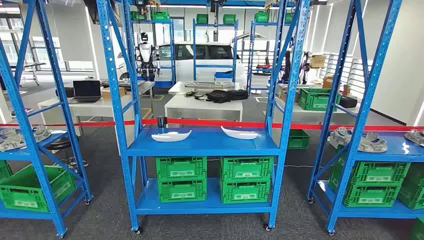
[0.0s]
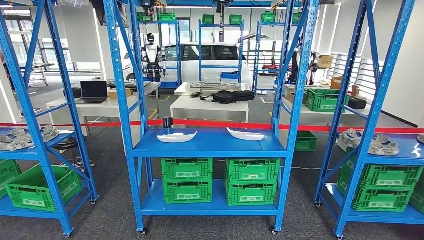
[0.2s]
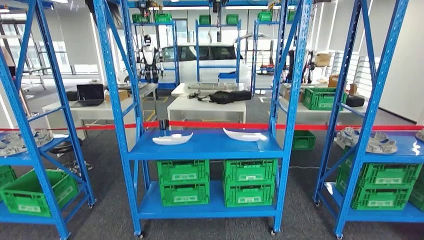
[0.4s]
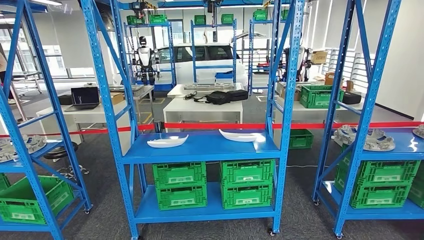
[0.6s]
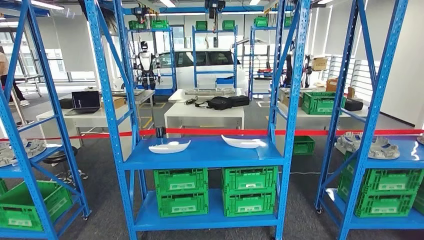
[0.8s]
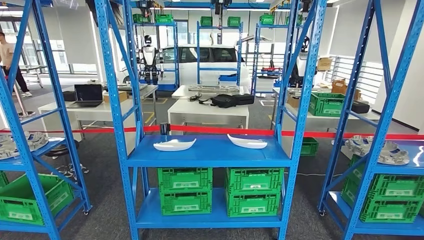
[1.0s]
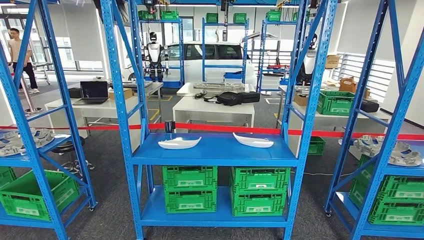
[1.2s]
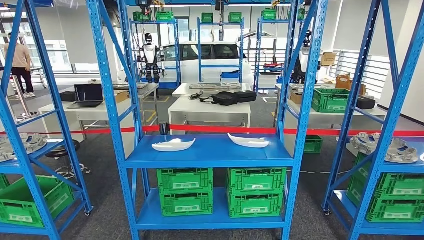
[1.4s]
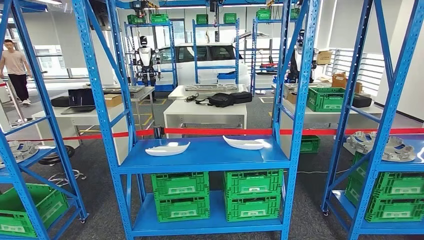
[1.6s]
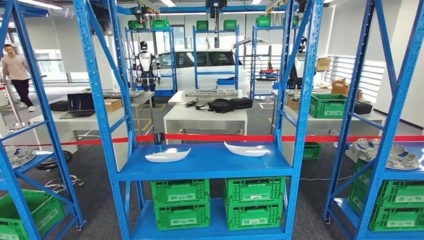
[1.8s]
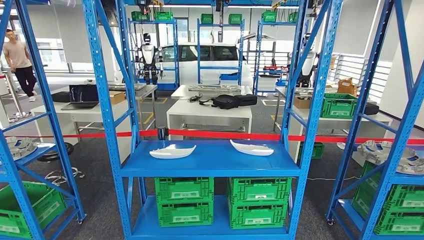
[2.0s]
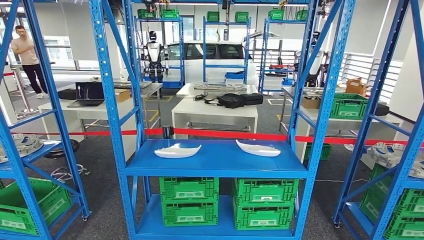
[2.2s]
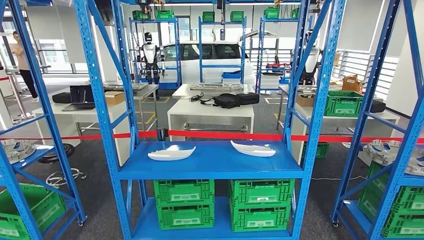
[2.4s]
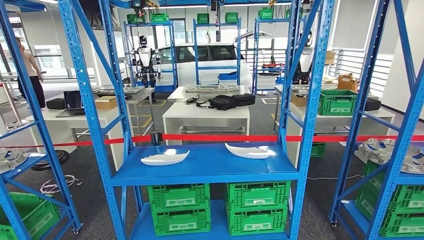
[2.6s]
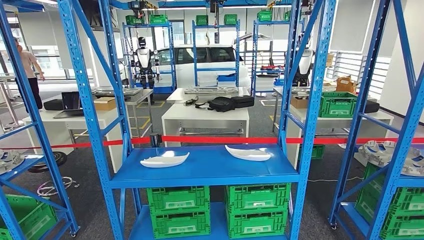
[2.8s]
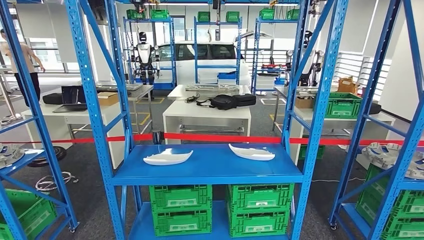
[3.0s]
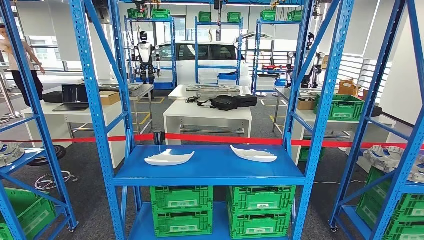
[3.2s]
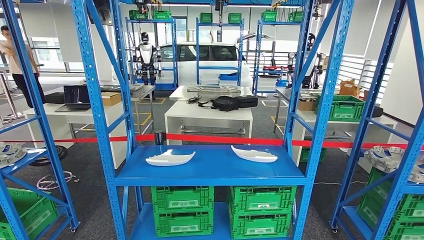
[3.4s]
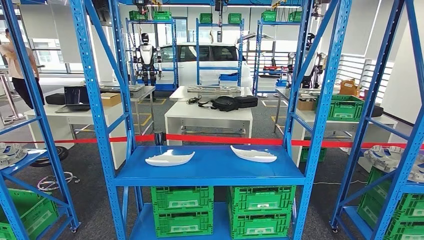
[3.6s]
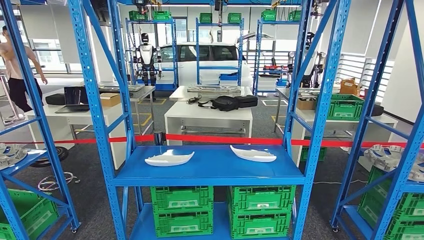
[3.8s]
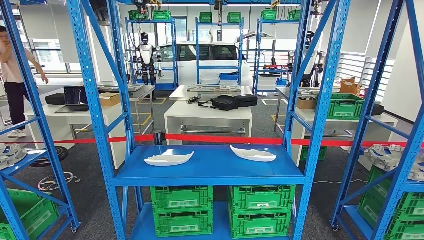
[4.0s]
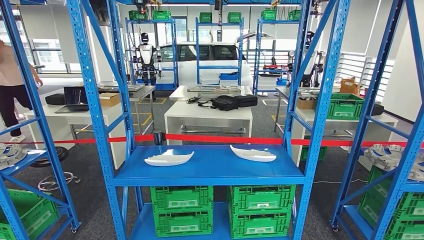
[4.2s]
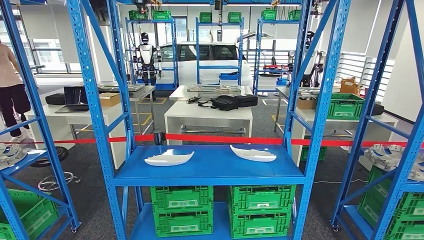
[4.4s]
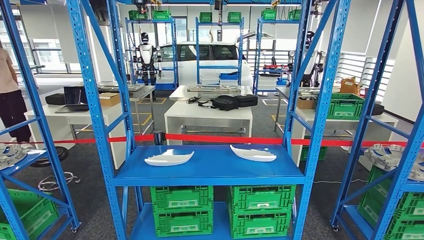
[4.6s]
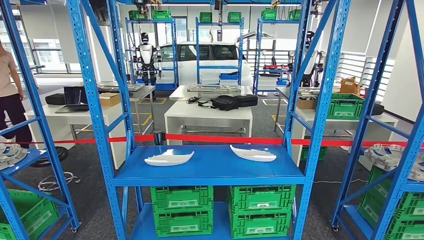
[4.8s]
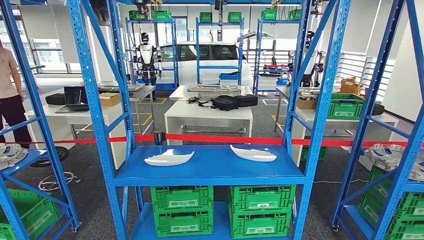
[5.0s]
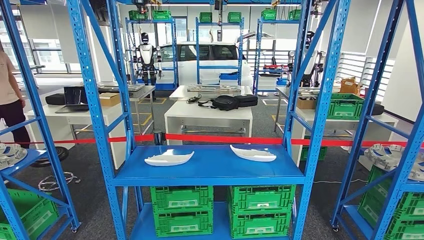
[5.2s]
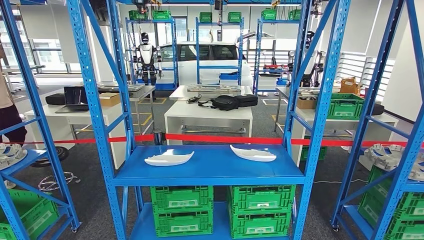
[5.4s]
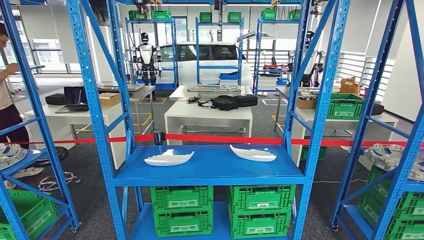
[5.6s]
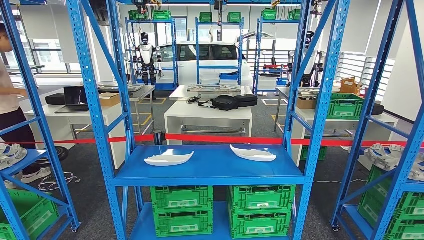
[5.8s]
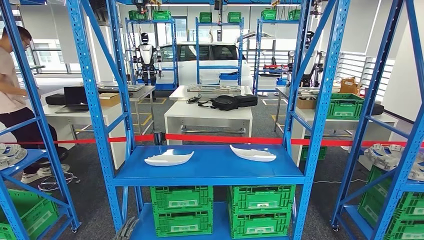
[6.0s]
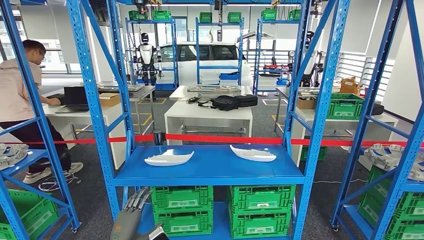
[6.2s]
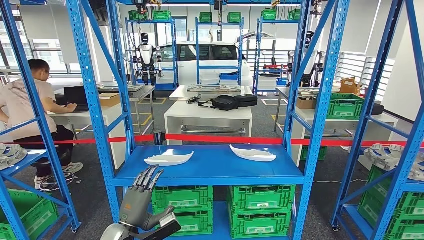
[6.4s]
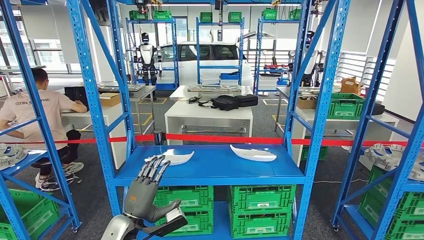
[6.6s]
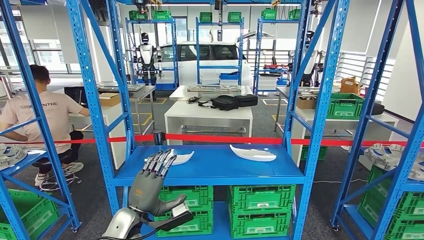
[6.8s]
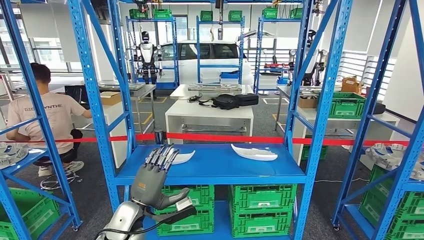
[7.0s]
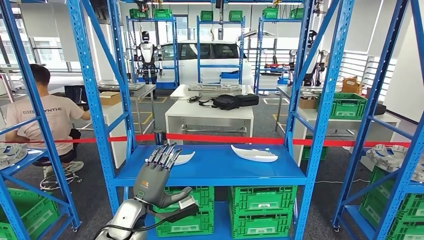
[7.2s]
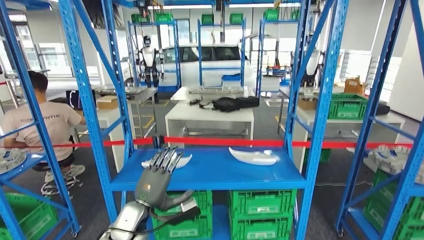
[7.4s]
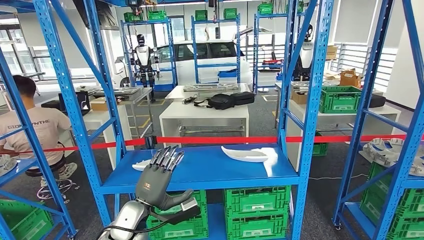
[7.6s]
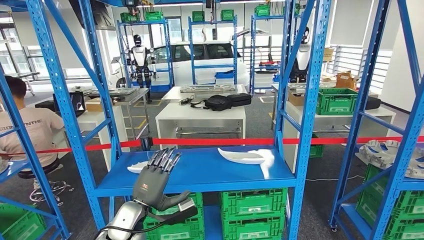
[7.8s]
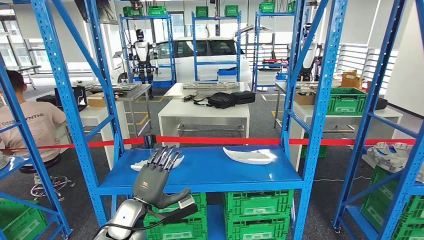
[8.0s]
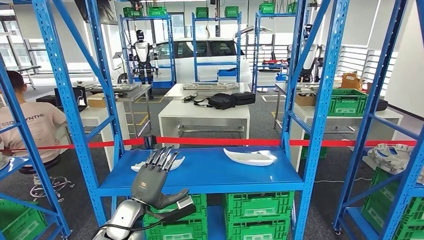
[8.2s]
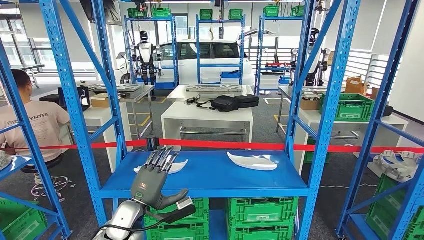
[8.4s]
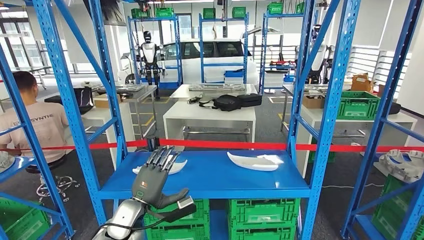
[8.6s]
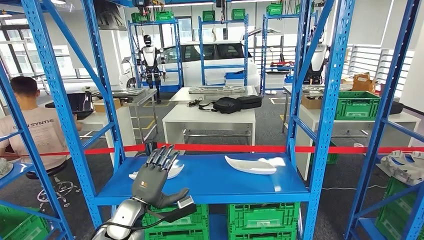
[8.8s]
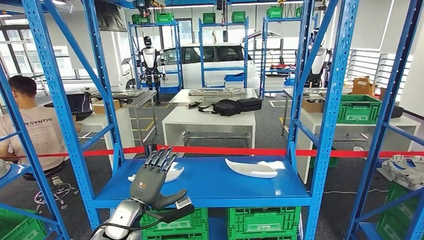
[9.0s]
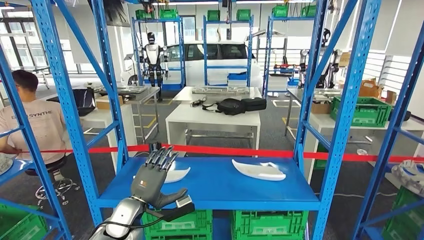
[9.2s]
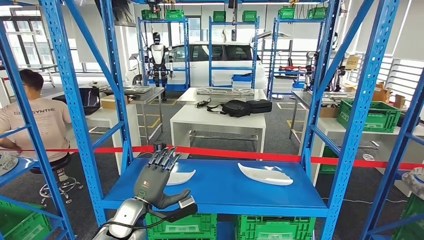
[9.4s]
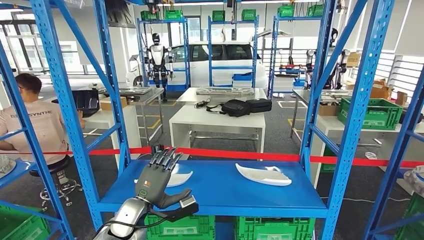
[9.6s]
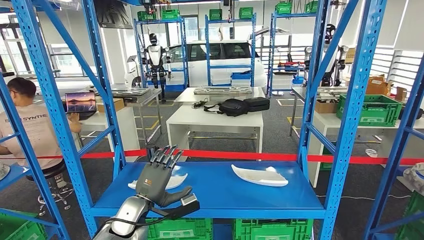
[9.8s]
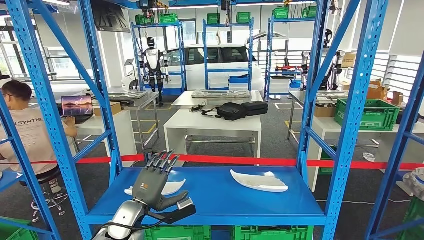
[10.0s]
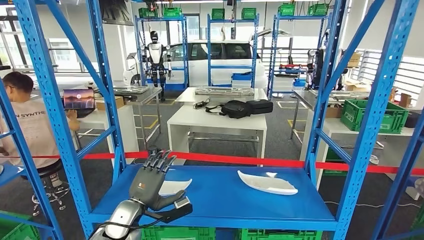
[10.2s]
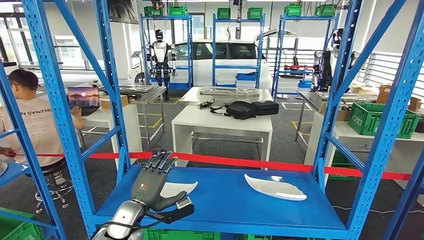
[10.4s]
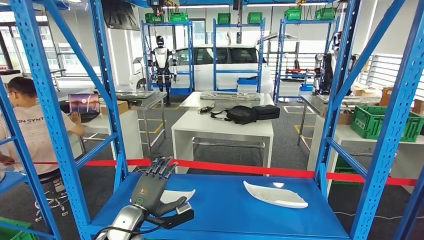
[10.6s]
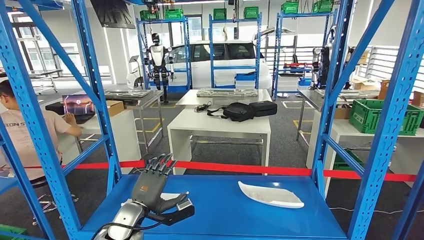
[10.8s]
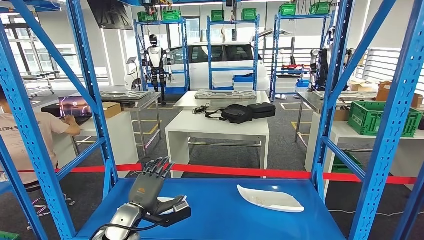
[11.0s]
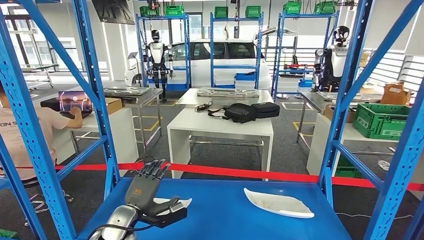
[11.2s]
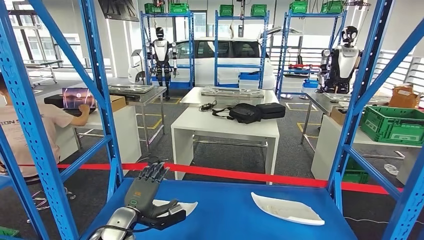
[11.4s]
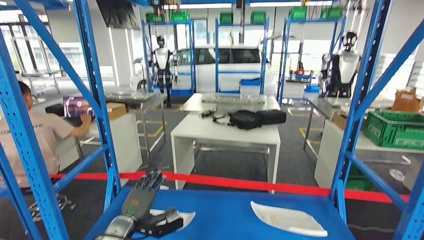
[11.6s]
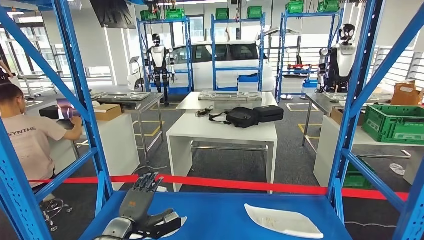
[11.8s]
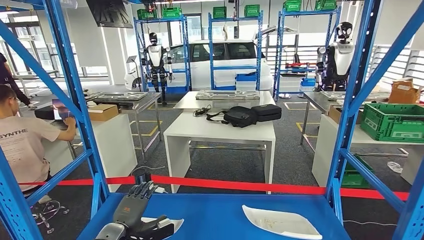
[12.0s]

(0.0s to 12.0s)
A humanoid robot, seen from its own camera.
4.4s - 6.0s: The left hand is displaced forward and upward by about 40 cm.

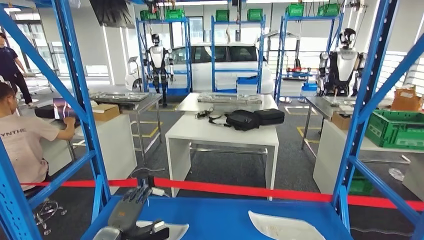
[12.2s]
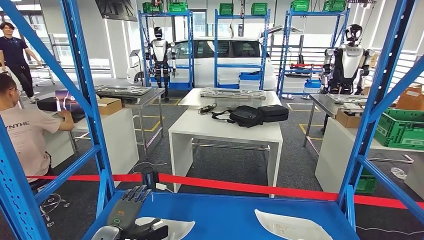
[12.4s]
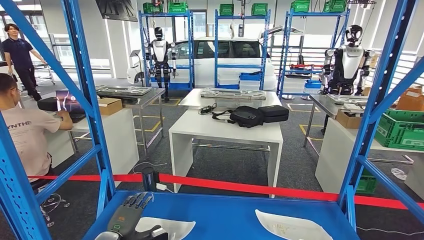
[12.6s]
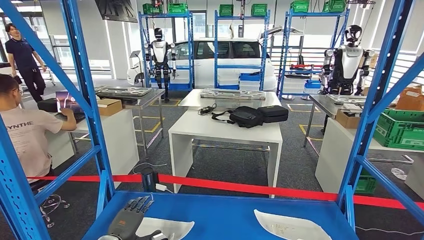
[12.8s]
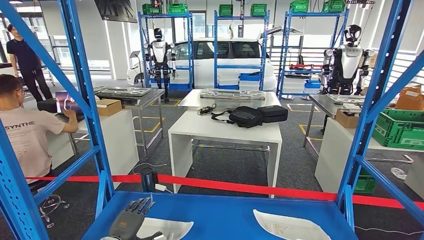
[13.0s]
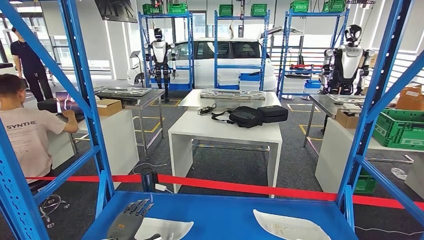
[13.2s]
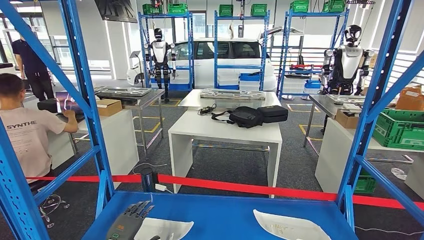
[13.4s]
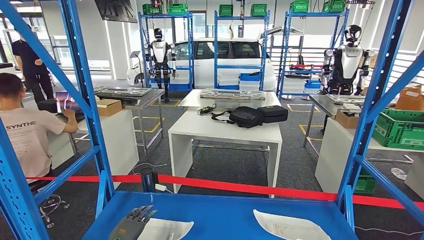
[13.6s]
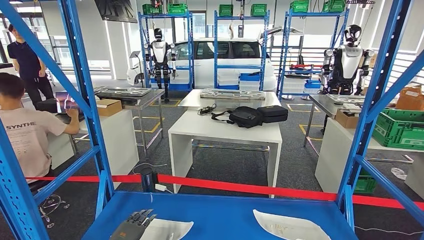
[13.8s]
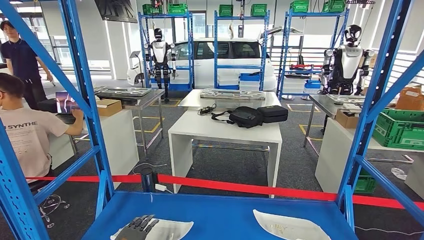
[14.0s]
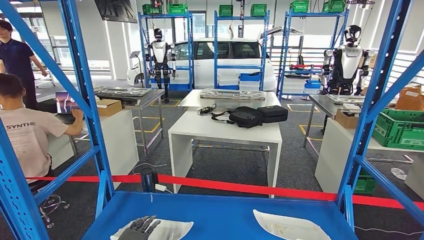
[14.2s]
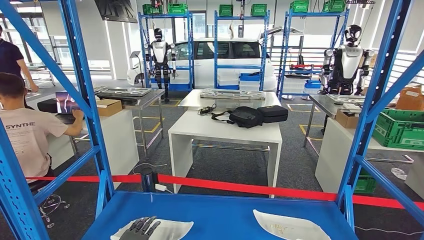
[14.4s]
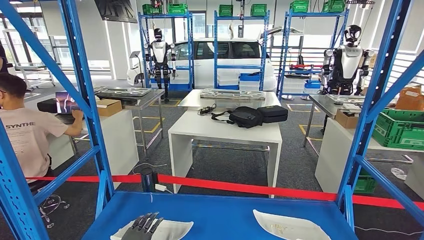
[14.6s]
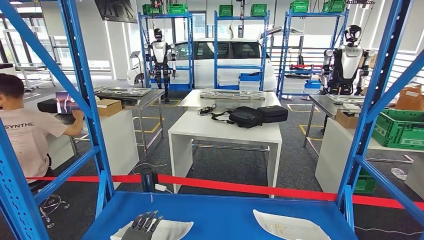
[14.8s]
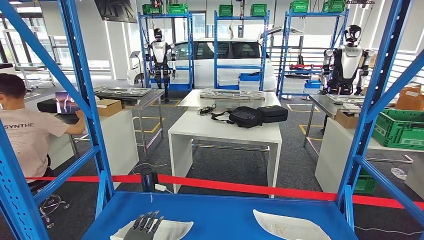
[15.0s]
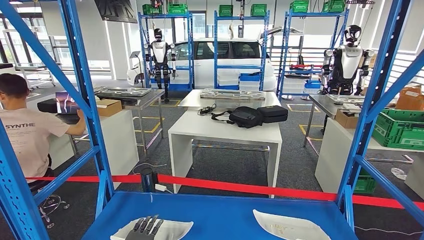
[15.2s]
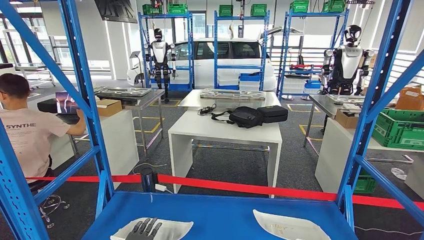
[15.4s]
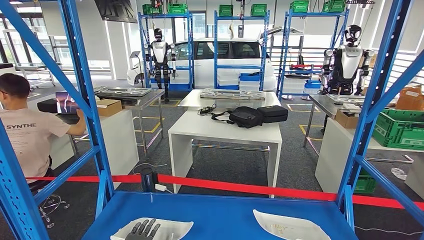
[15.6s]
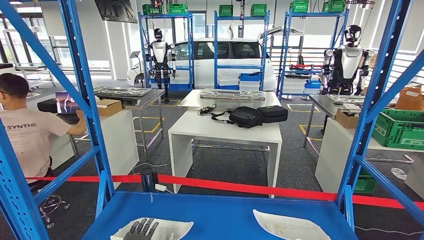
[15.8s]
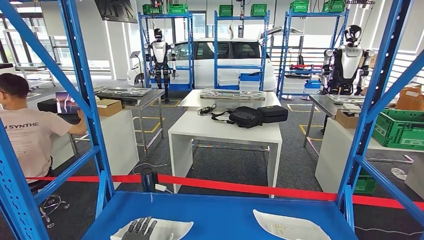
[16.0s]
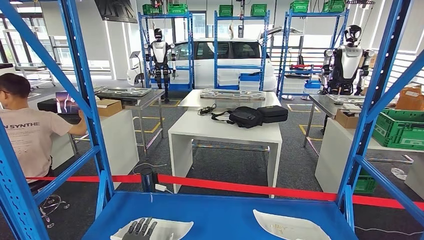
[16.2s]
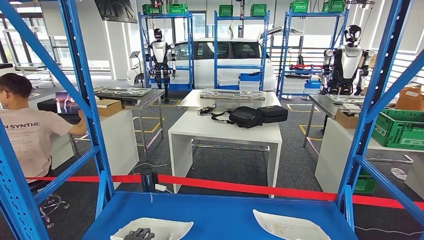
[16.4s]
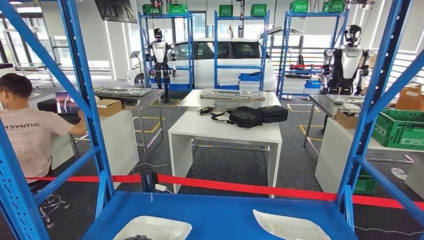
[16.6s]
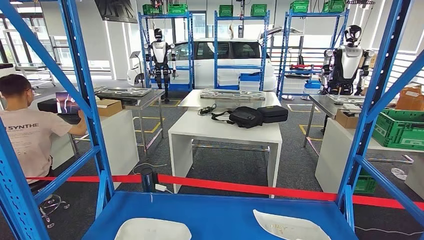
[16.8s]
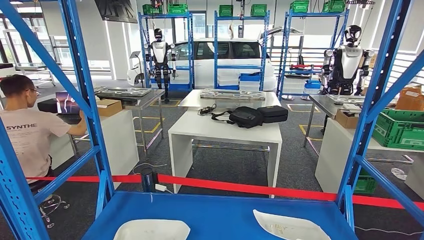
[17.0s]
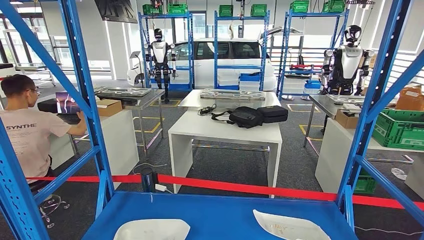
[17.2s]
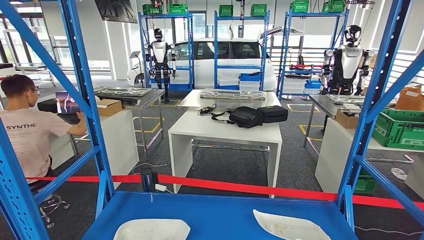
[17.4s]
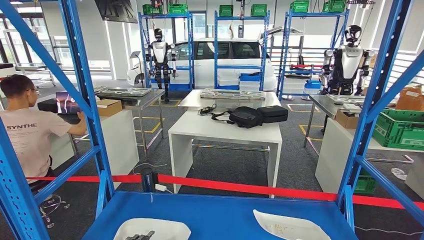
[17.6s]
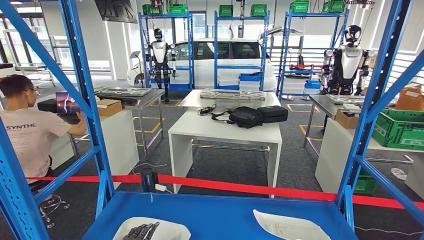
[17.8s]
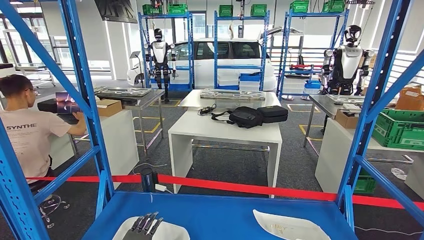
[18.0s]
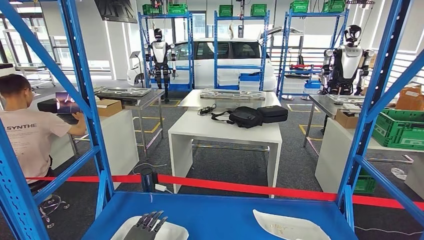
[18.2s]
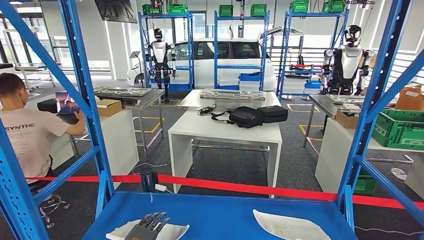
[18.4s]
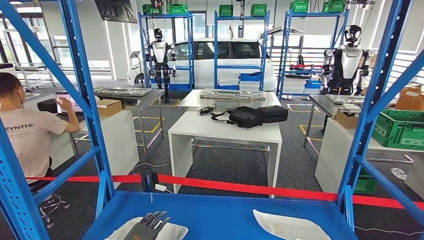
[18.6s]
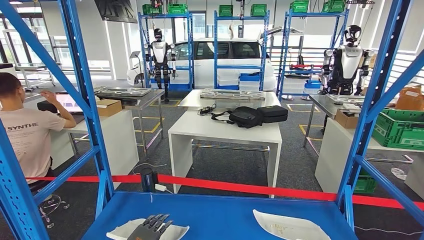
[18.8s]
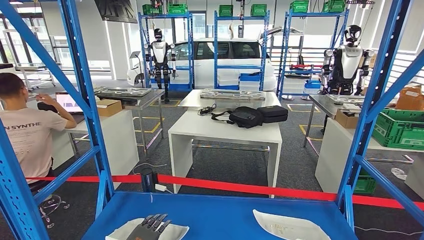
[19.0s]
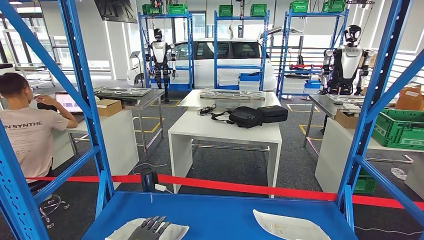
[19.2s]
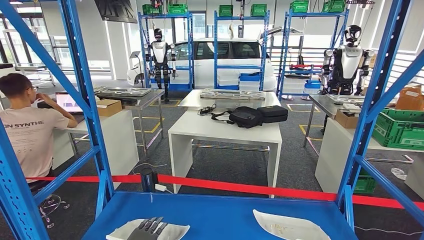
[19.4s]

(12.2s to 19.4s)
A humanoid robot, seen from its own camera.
13.6s - 15.0s: The left hand shifts by about 5 cm.
15.0s - 19.4s: There are only small adjustments of the hands.
